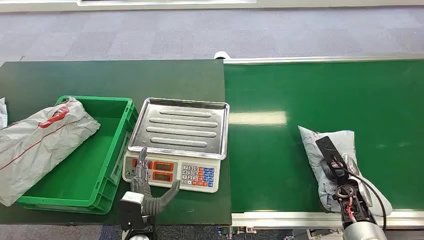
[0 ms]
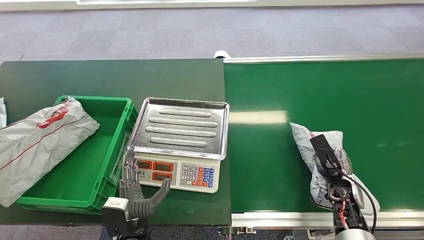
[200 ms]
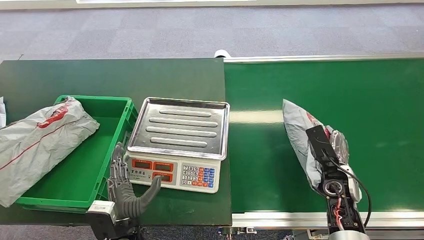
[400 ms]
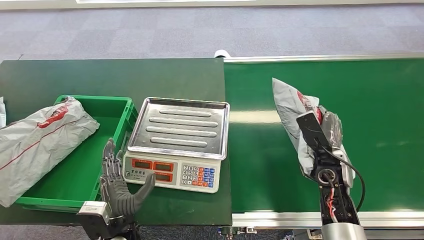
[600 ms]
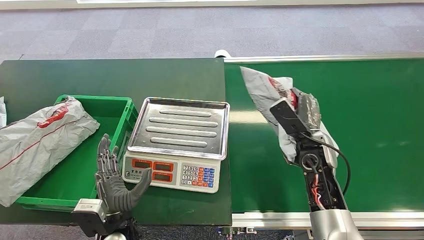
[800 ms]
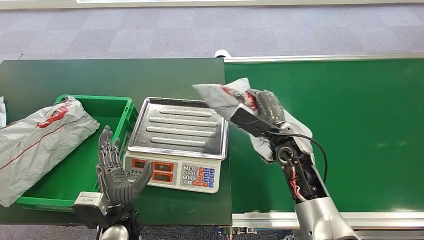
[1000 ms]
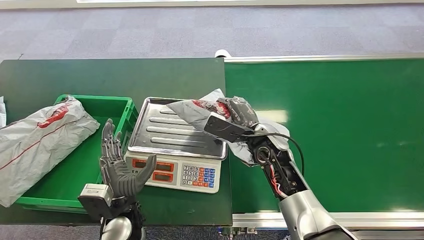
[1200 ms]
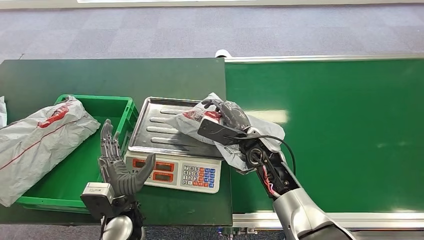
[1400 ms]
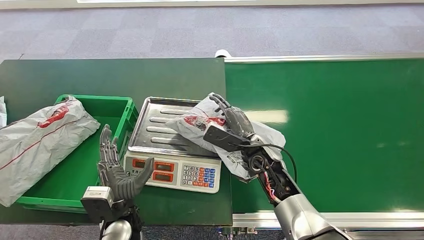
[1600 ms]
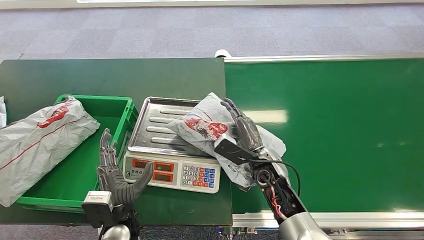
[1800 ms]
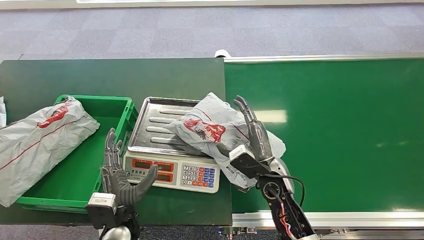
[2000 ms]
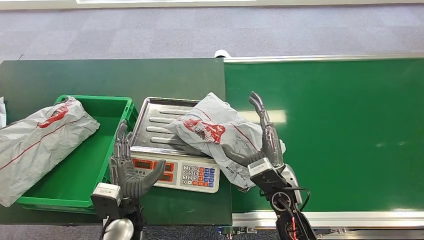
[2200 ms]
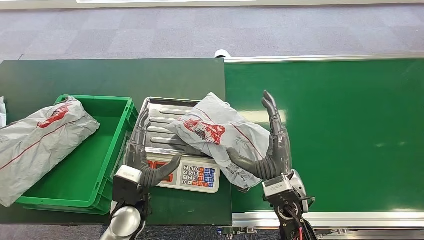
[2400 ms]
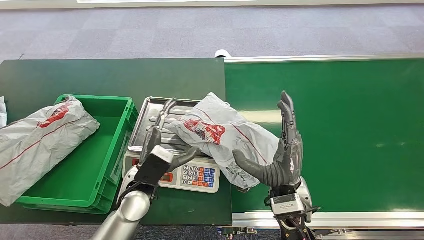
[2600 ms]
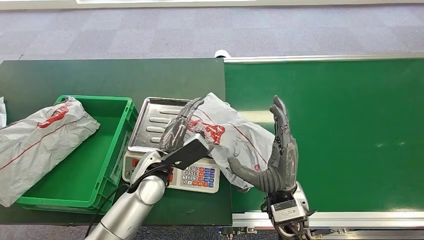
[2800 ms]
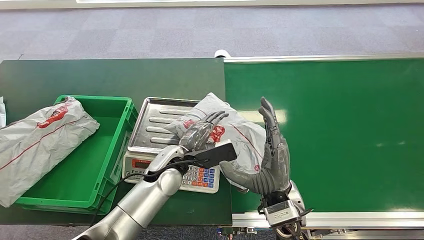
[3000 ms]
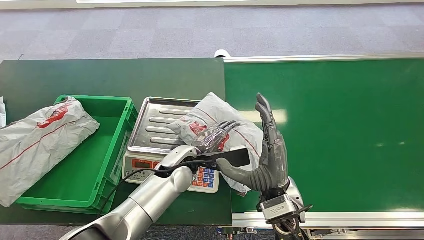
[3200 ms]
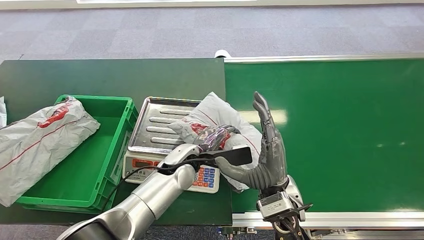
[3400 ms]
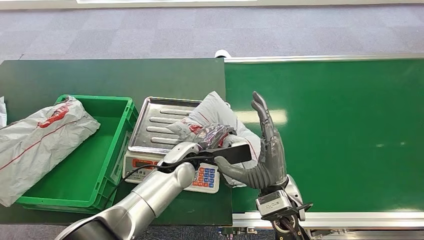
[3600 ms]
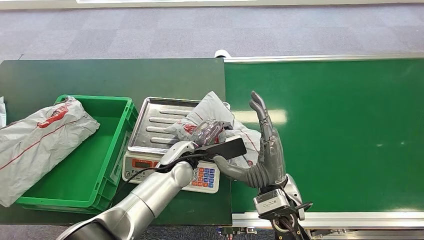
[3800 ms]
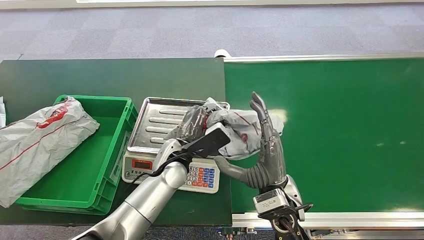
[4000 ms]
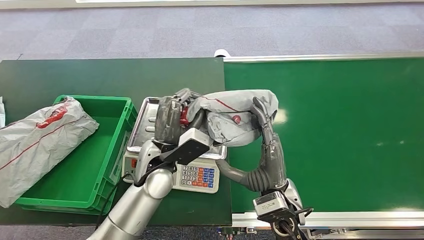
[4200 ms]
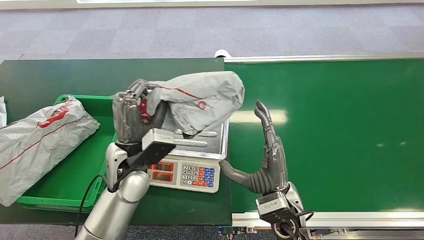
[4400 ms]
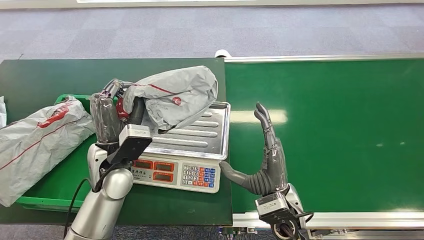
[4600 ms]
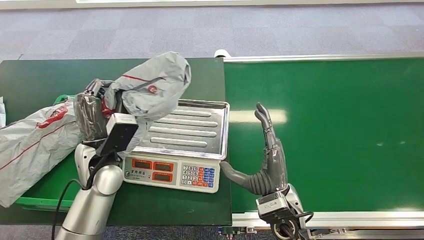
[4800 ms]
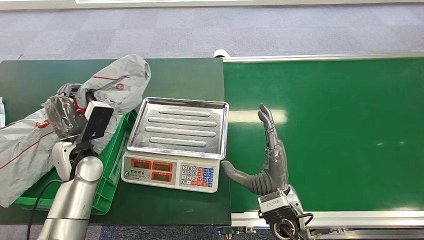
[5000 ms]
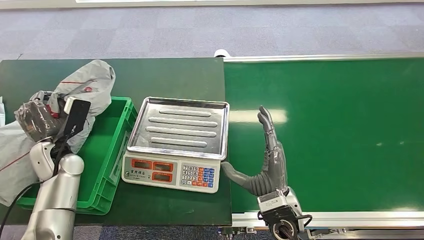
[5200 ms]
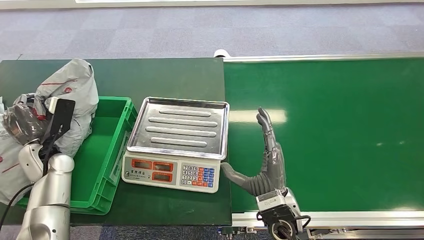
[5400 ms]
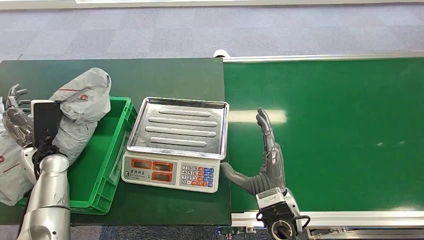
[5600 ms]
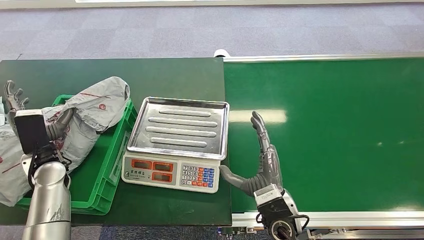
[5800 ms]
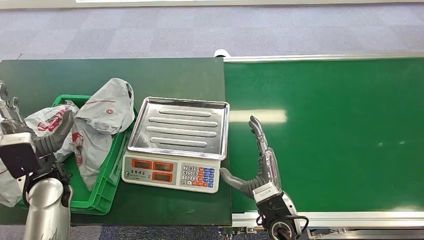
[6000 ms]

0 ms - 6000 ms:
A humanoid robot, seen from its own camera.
Step, 0 ms - 600 ms: Pick up the package from the conveyor belt.
Step, 1000 ms - 2000 ms: Place the package onto the inbound machine.
Step, 4000 ms - 4800 ms: Pick up the package from the inbound machine.
Step, 5400 ms - 6000 ms: Place the package into the parcel locker.
1600 ms - 3000 ms: The left hand goes approximately 15 cm forward, to the right and upward. The right hand travels backward by approximately 15 cm.
3000 ms - 4400 ms: The left hand goes some 10 cm upward and to the left.
